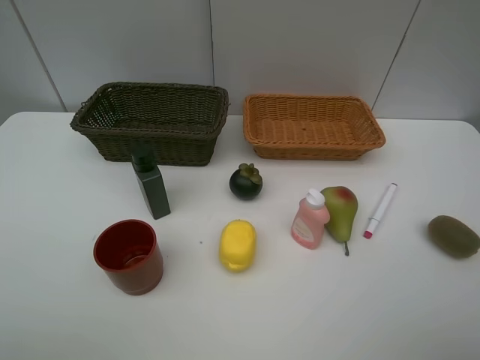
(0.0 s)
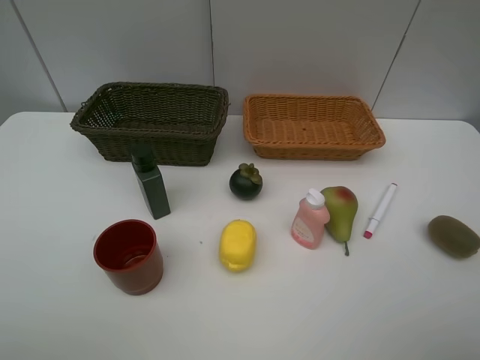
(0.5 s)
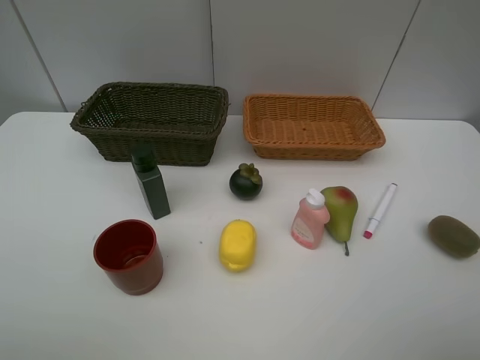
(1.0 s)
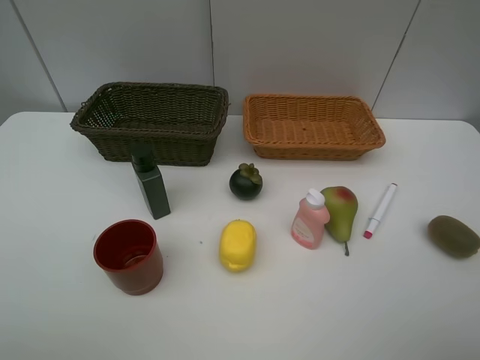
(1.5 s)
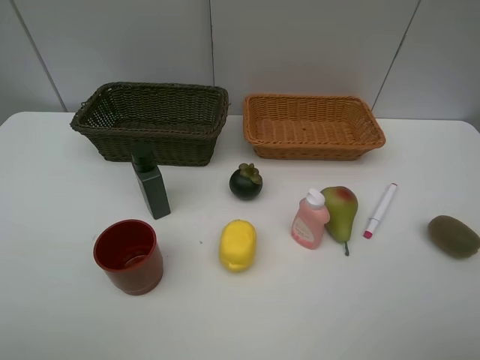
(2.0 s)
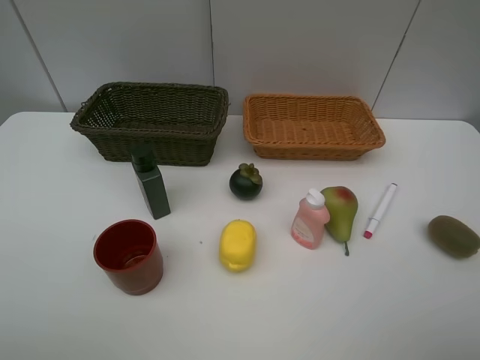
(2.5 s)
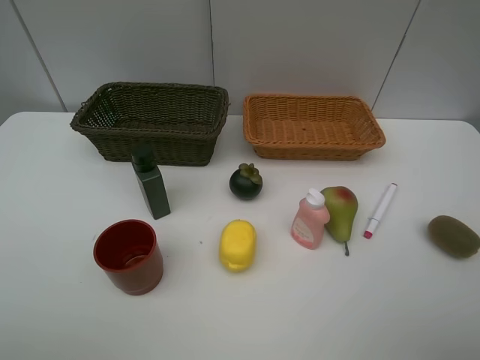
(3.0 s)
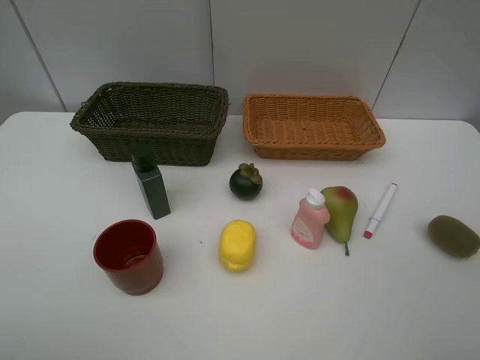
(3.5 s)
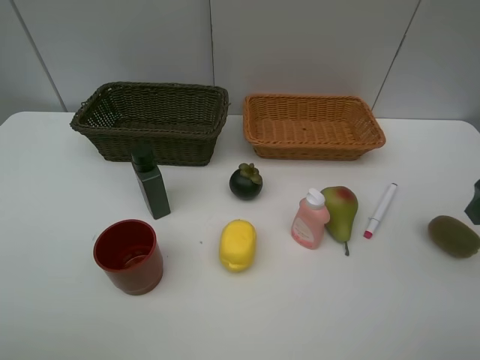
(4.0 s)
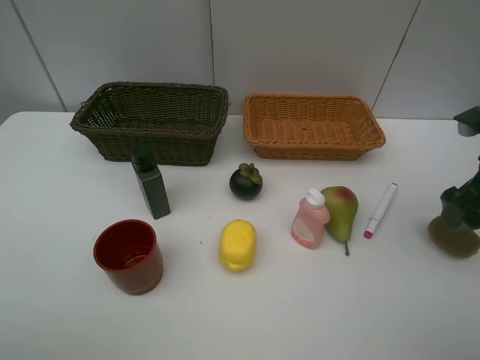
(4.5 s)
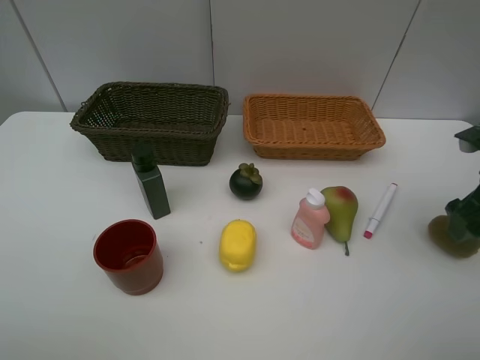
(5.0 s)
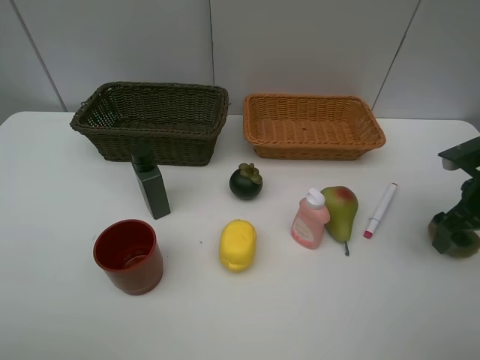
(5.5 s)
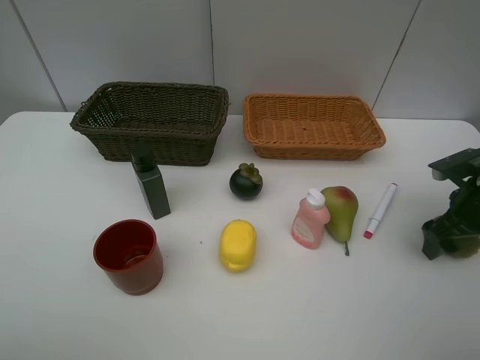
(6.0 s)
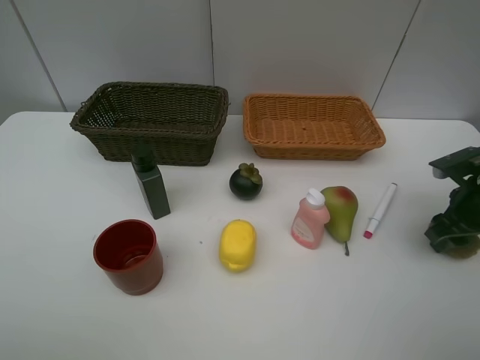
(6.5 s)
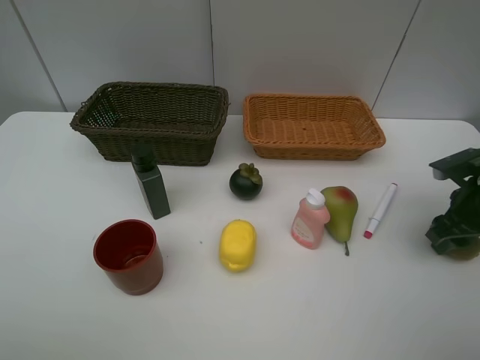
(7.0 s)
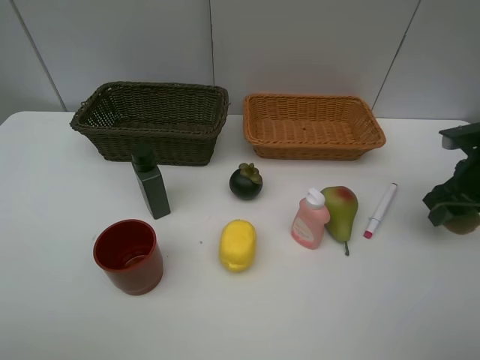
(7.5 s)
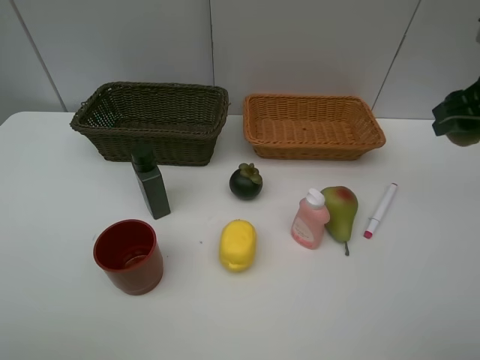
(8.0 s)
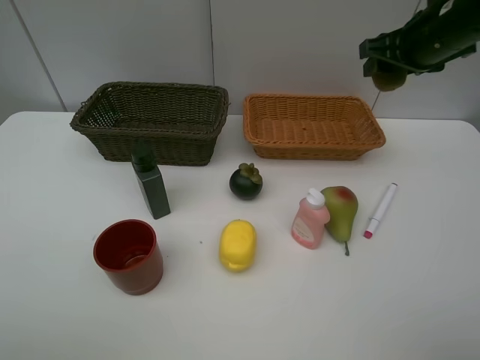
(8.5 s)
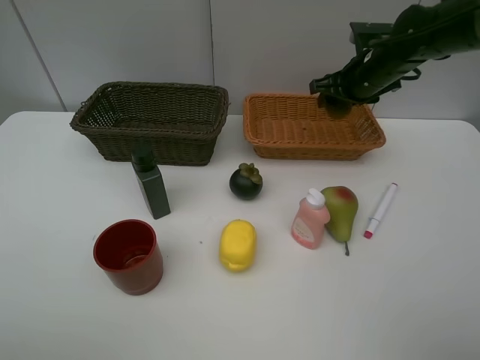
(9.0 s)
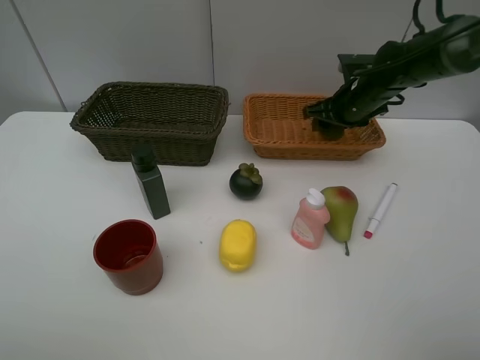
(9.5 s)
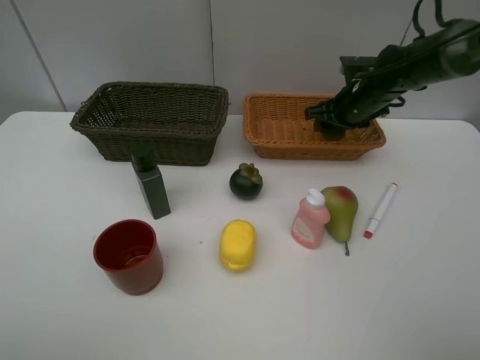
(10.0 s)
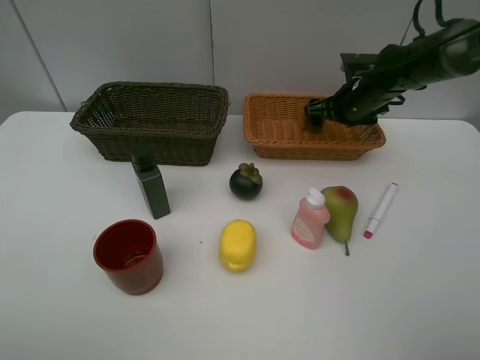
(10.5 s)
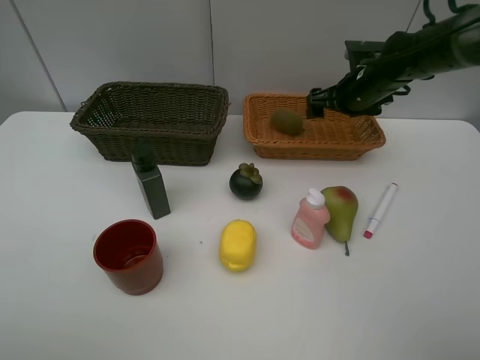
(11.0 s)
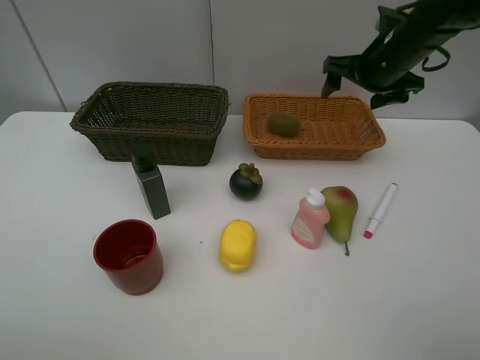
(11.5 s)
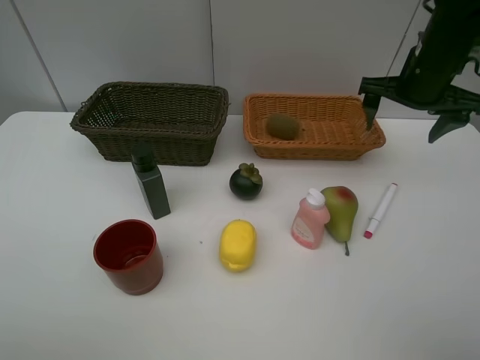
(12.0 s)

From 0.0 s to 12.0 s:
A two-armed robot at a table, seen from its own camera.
Task of the whole recording: Place multiple objects separately in different baskets.
Step, from 0.0 s to 7.0 s: Pick up kiwi with right gripper.
Step, from 7.5 s to 11.0 s: Place the kiwi in the light basket with right gripper.
From 0.0 s to 2.0 s: Both grippers stay put.
From 4.0 s to 6.0 s: The right gripper goes about 15 cm downward and forward.
From 6.0 s to 8.0 s: The right gripper moves upward, roughly 15 cm, and closes.
From 8.0 s to 10.0 s: The right gripper goes about 20 cm forward, downward and to the left.
From 10.0 s to 12.0 s: The right gripper goes roughly 10 cm upward and backward, and opens.

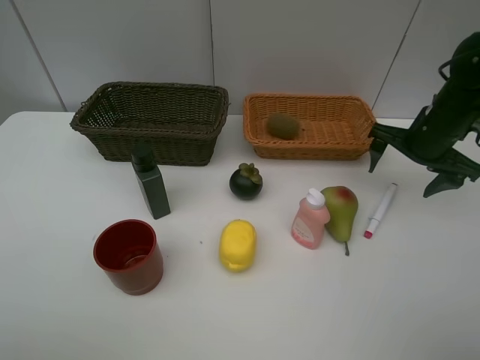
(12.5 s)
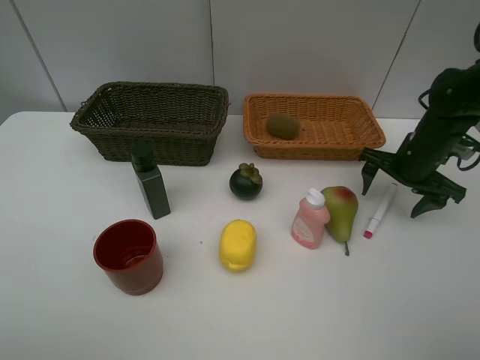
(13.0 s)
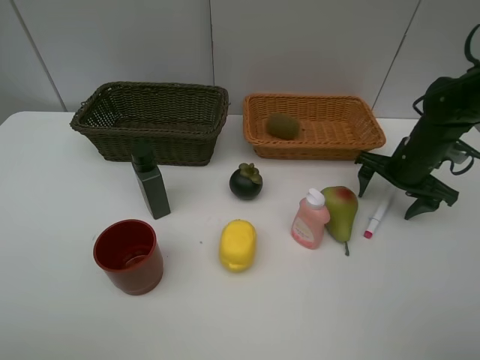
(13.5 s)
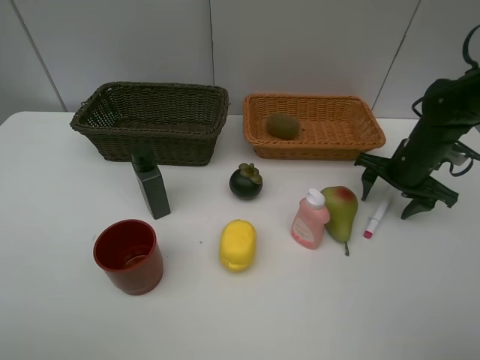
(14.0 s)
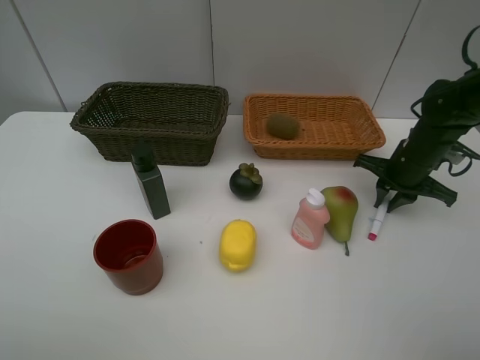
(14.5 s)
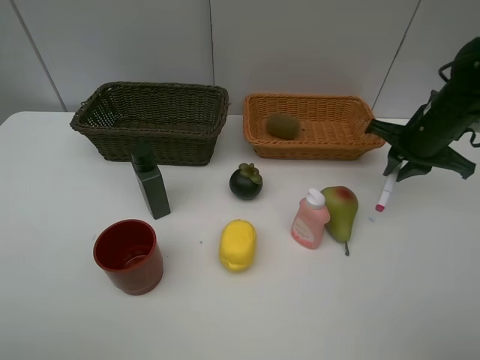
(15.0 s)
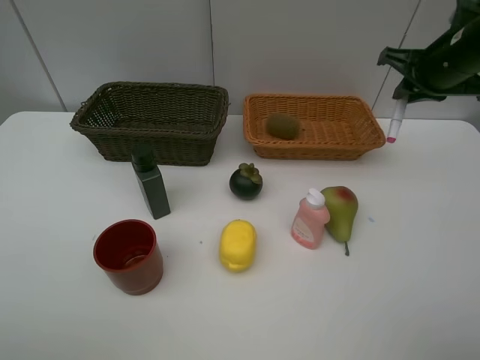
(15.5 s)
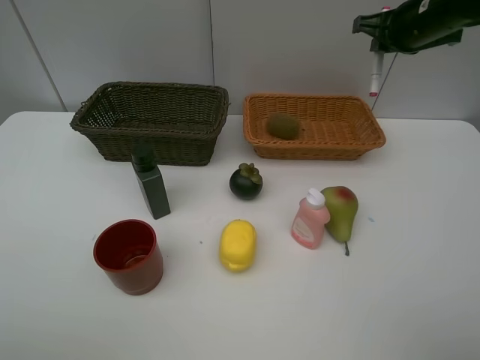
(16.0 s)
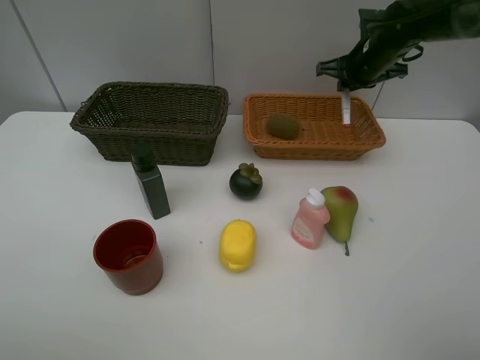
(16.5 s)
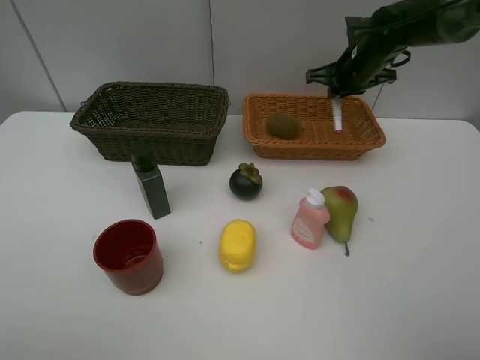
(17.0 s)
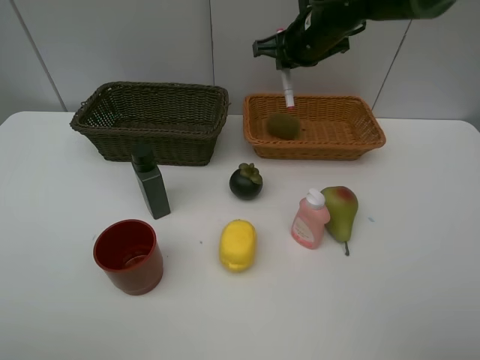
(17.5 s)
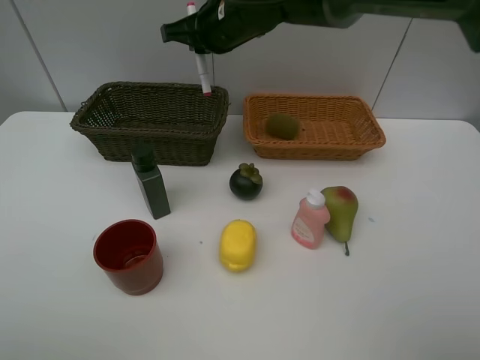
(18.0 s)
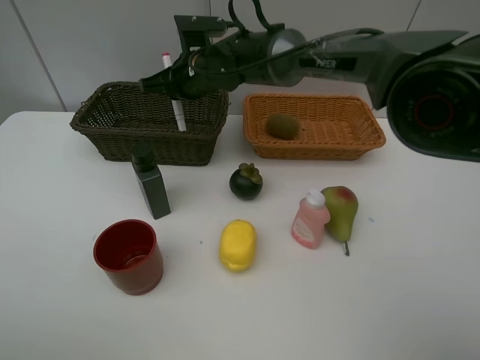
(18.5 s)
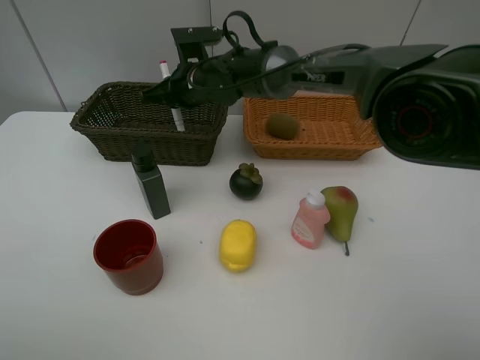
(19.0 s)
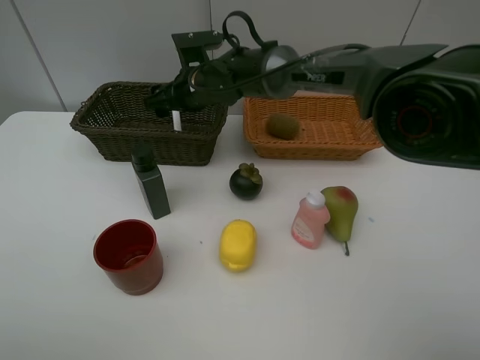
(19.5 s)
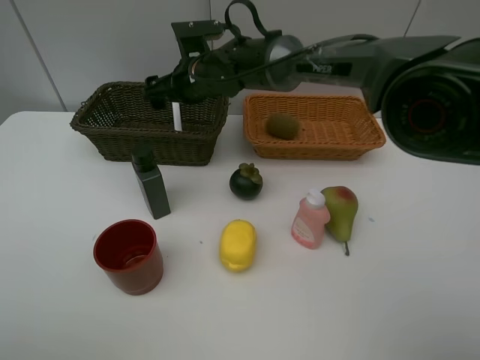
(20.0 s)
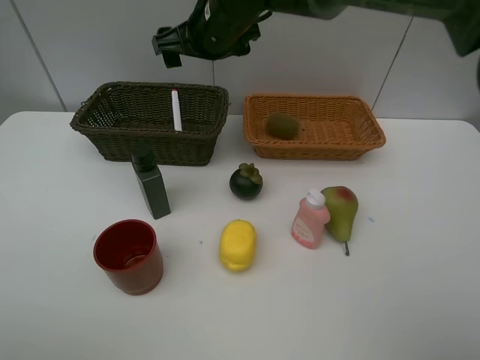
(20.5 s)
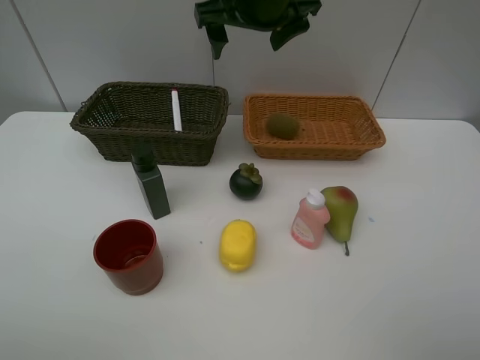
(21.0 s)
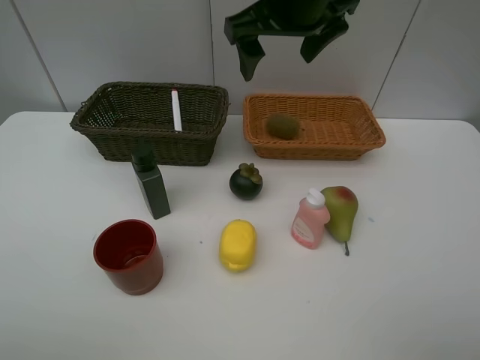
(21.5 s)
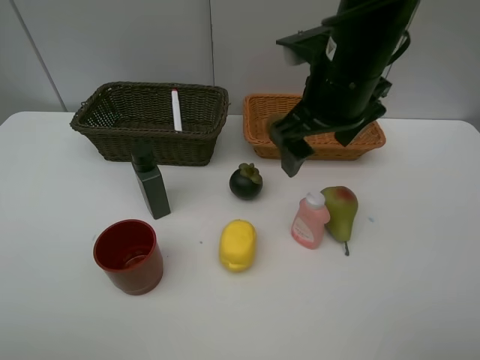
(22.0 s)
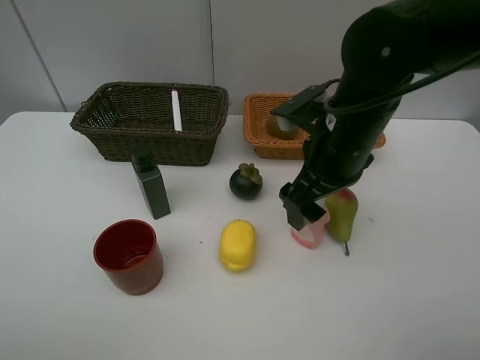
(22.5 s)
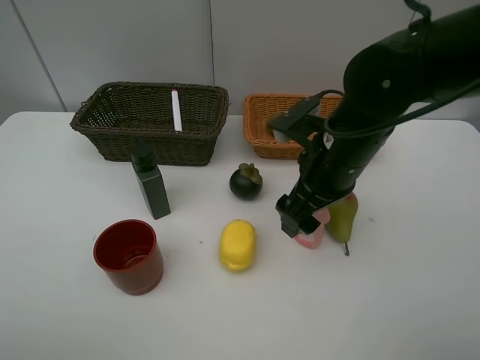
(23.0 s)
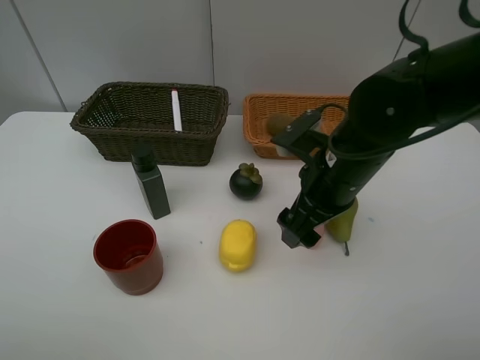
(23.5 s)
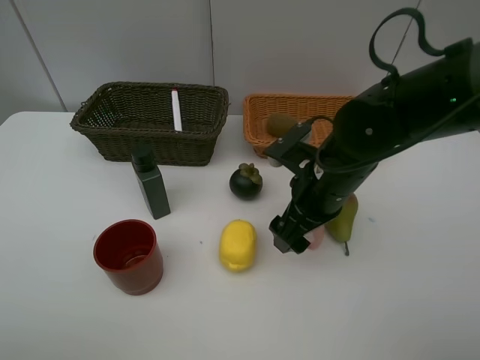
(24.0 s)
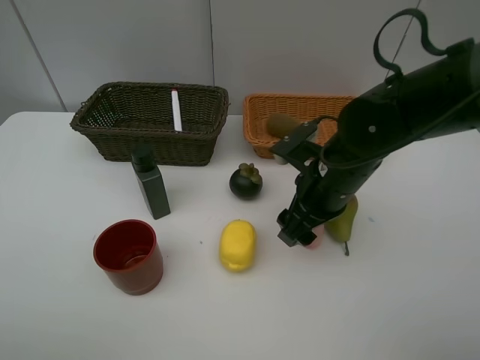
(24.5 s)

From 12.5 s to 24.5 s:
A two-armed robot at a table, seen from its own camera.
Task of the whole recording: Place multiple objects separately in different baskets.
Step, from 12.5 s to 14.5 s: Pick up pink marker pen with right gripper.
Step, from 15.0 s to 20.0 s: Place the pink marker pen in the dark basket with right gripper.
From 12.5 s to 14.5 s: The right gripper heads downward, covering about 5 cm, and closes its fingers.
From 14.5 s to 16.5 s: The right gripper travels forward, upward and to the left by some 15 cm.
From 16.5 s to 18.5 s: The right gripper shifts roughly 30 cm to the left.
From 18.5 s to 20.5 s: The right gripper is displaced upward by some 10 cm, and opens its fingers.
From 20.5 s to 22.5 s: The right gripper goes about 20 cm backward, to the right and downward.
From 22.5 s to 24.5 s: The right gripper moves downward, some 5 cm.

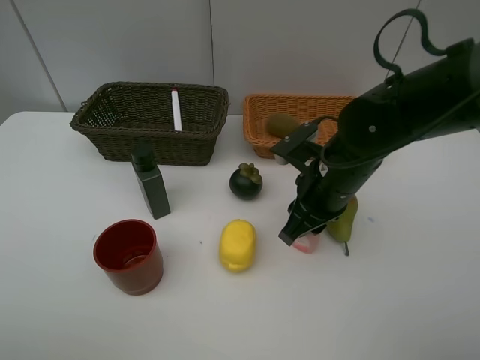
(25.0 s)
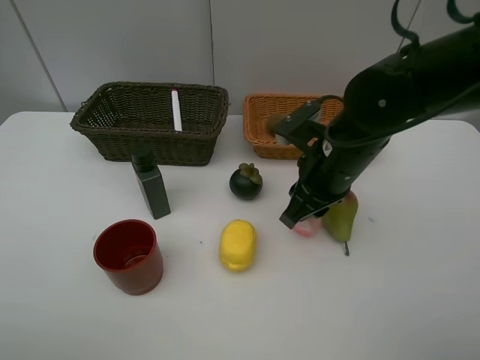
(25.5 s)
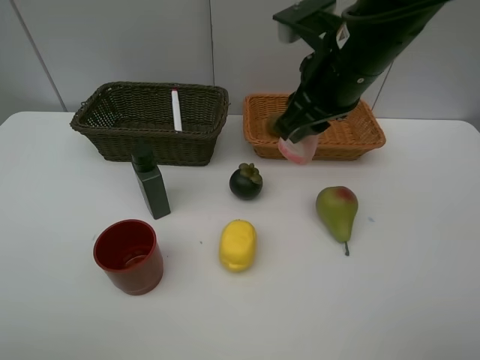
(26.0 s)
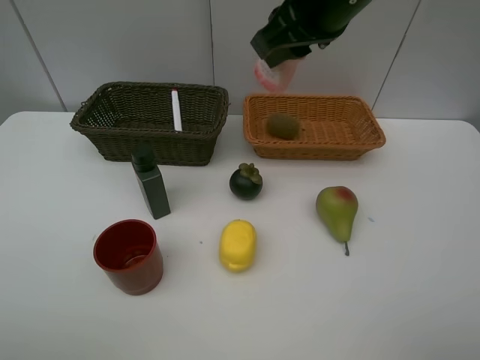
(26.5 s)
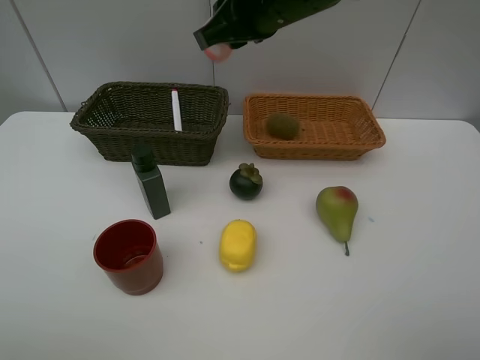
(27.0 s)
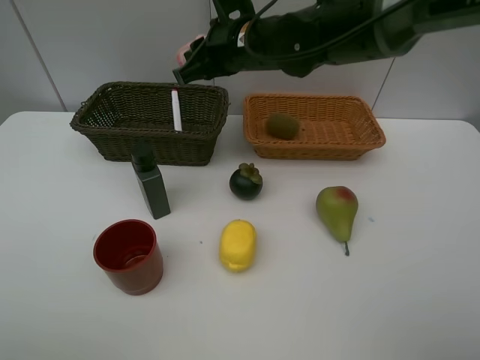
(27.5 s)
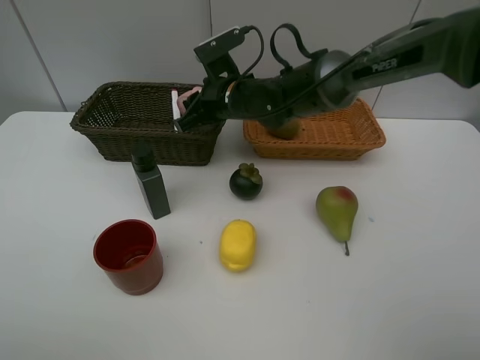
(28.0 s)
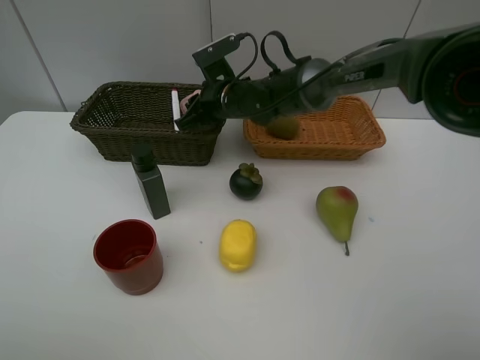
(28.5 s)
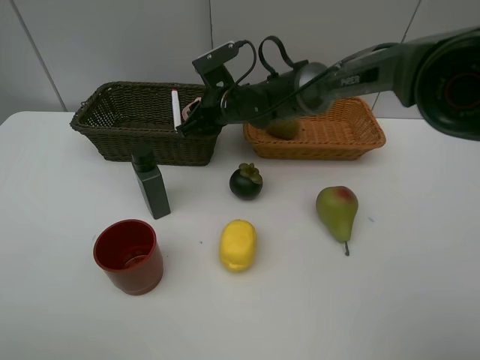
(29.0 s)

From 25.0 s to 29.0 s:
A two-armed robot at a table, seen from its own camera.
Task of the whole recording: Place multiple objects separately in different baskets.
From 25.0 s to 27.0 s: The right gripper is displaced upward, forward and to the left by roughly 20 cm.
From 27.0 s to 29.0 s: The right gripper heads downward and forward, covering approximately 20 cm.
